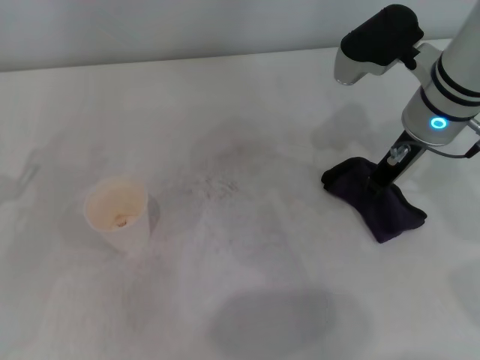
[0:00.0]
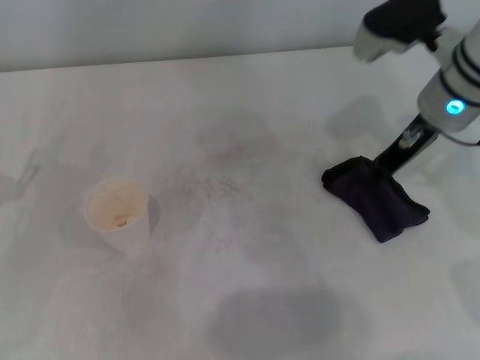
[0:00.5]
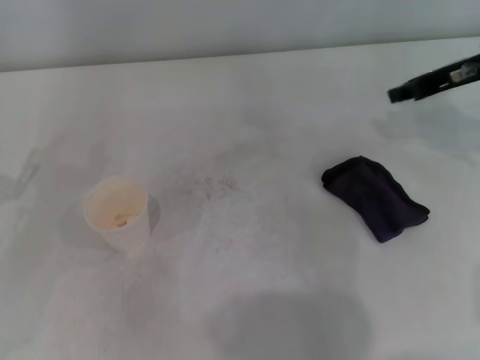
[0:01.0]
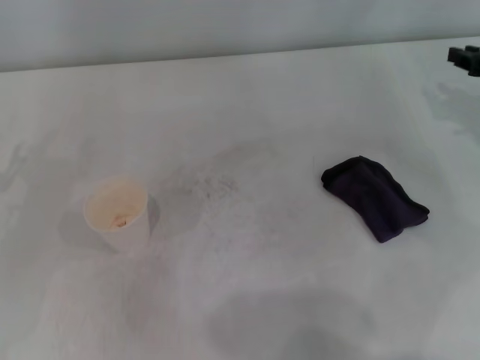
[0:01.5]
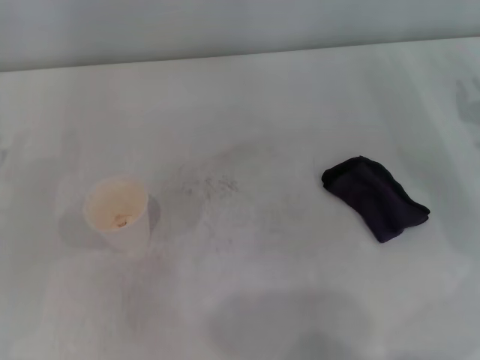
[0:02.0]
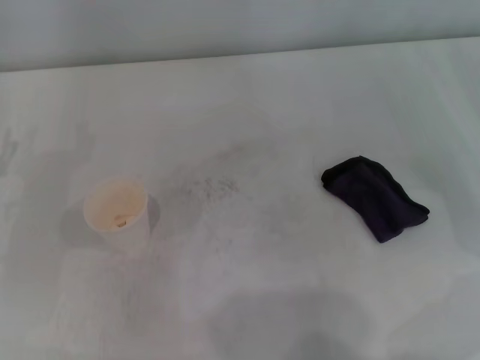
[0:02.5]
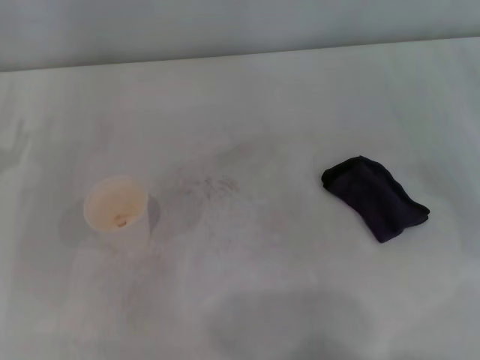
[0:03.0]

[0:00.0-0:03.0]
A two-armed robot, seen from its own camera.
0:00.0 to 0:01.5: The right gripper goes roughly 15 cm to the right.
0:01.5 to 0:03.0: The right gripper ends up some 5 cm from where it was, and opens up.
